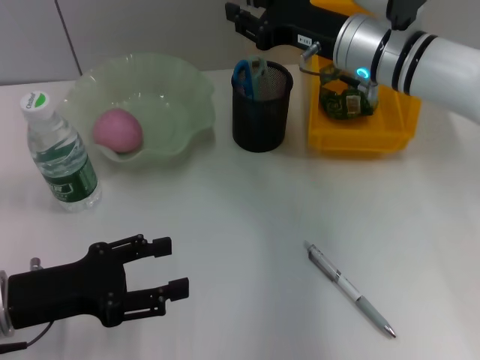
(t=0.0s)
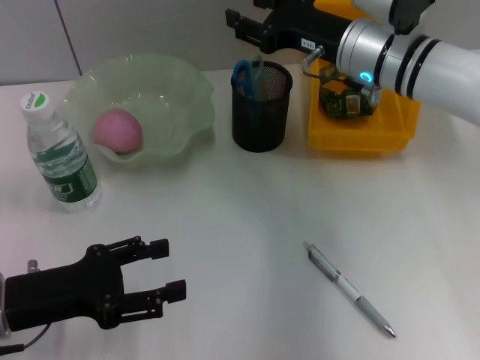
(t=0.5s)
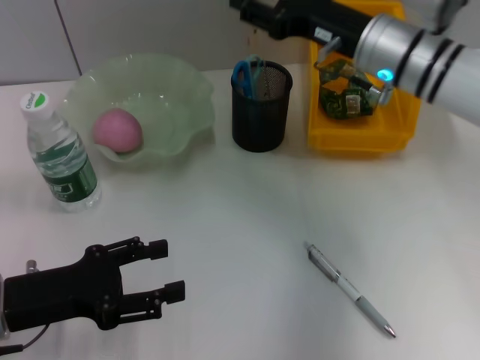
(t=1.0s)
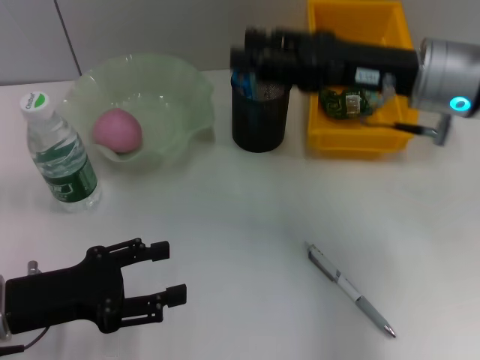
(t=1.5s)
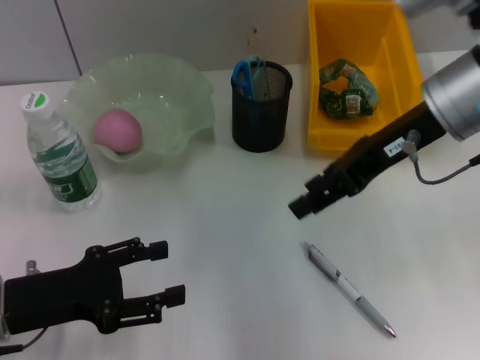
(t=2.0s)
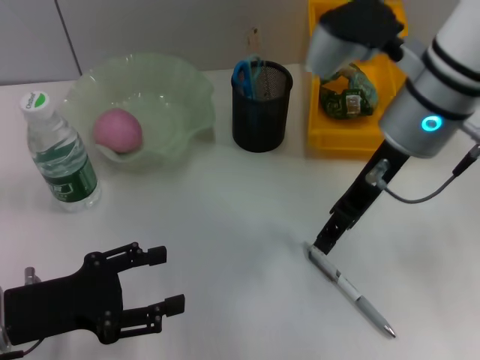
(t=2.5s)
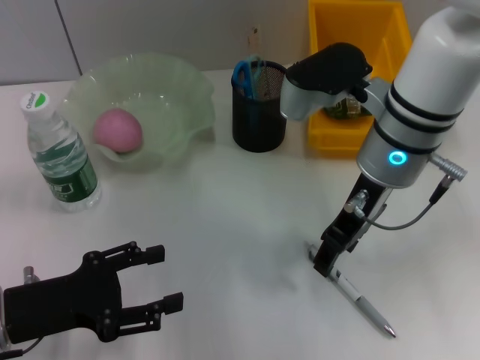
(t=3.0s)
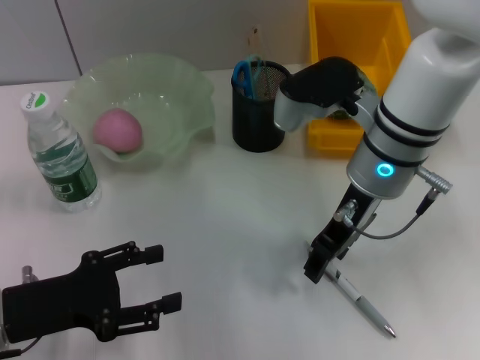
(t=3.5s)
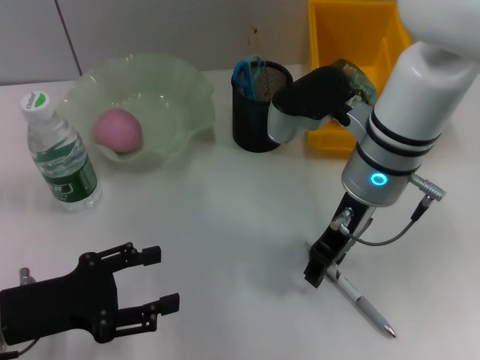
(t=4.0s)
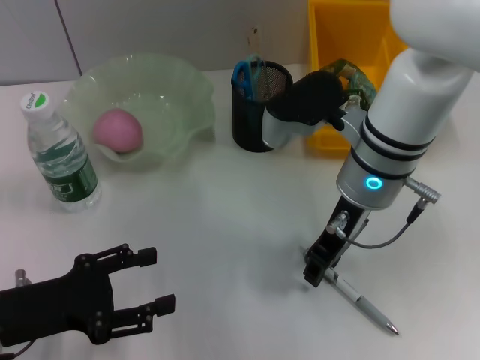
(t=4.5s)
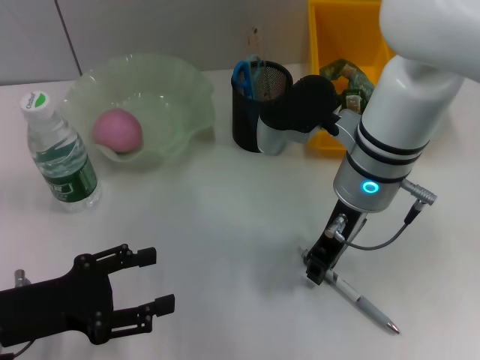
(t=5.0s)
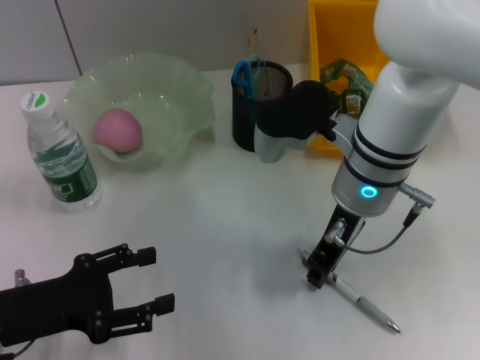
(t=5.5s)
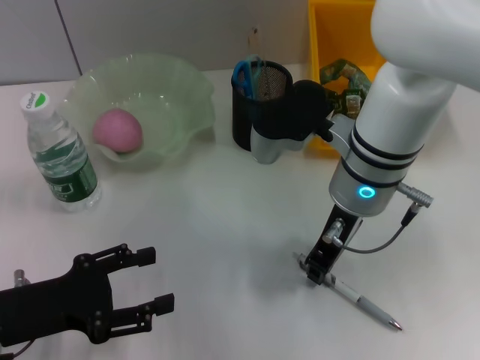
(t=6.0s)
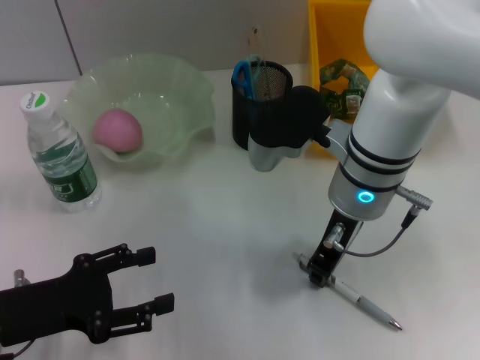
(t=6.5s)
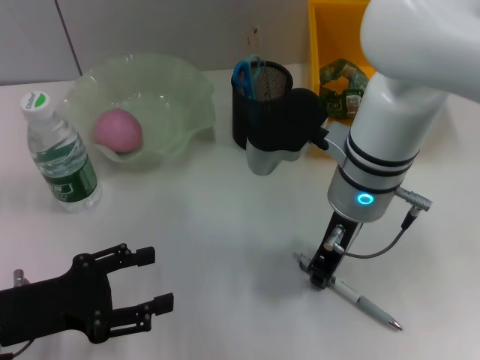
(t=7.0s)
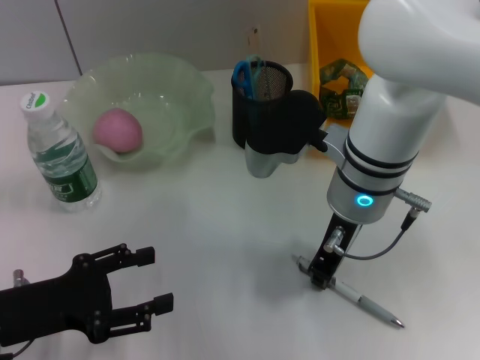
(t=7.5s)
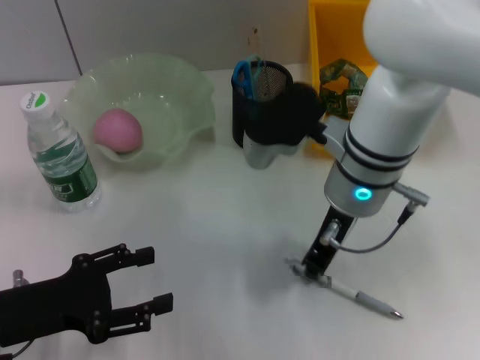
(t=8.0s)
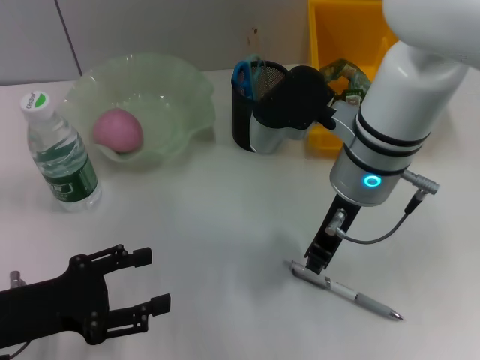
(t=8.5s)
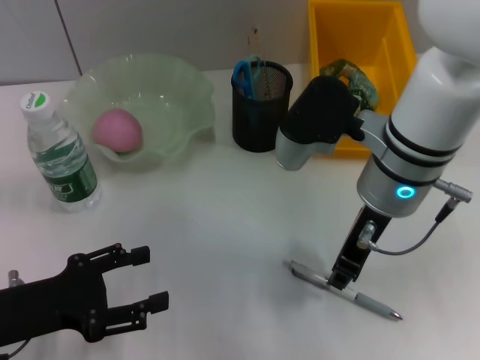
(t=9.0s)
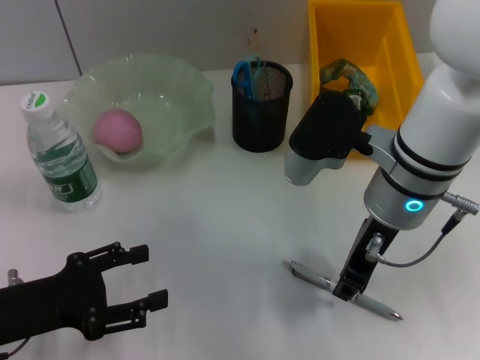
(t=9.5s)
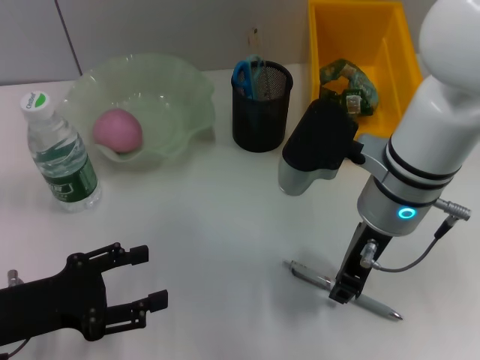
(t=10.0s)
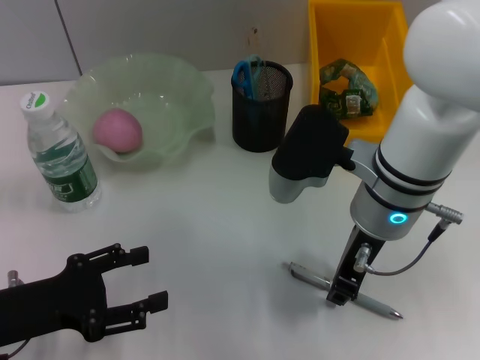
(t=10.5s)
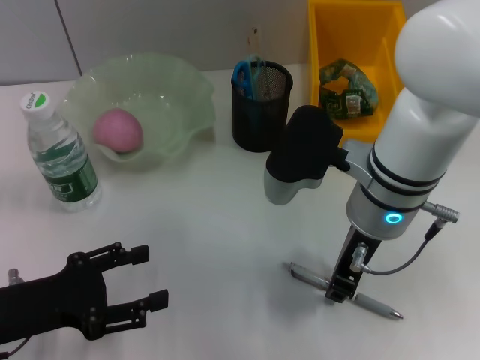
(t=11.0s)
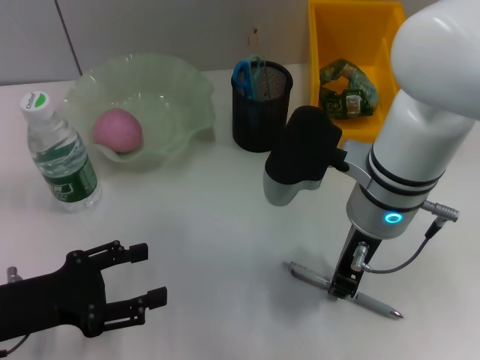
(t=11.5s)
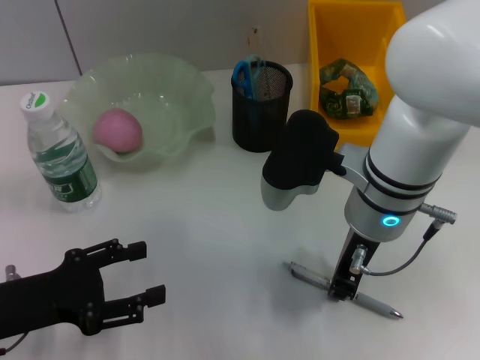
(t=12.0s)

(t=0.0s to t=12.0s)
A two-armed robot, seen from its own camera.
t=0.0s - t=2.0s: The right gripper heads backward and upward, covering about 10 cm.
t=2.0s - t=4.0s: The right gripper goes about 10 cm downward and to the left.
t=4.0s - t=6.0s: The grippers stay close to where they were, moving slightly.
t=6.0s - t=8.0s: Both grippers stay put.
t=8.0s - t=12.0s: The grippers make only small movements.

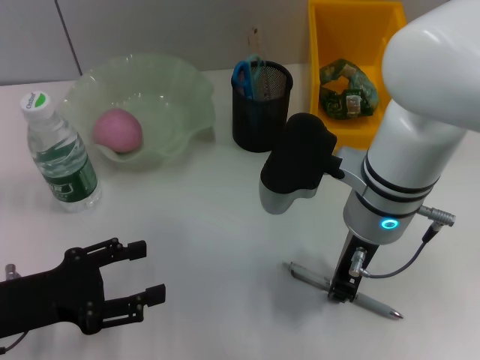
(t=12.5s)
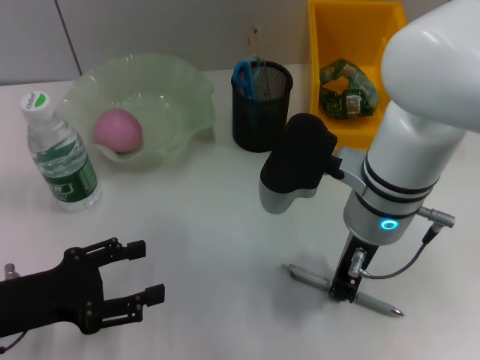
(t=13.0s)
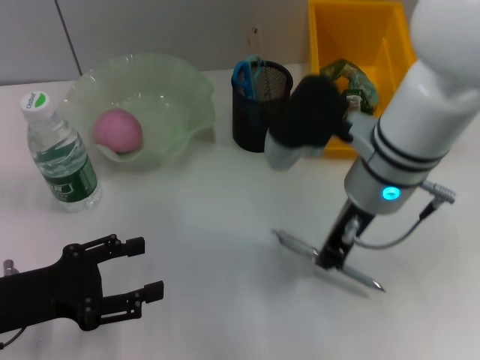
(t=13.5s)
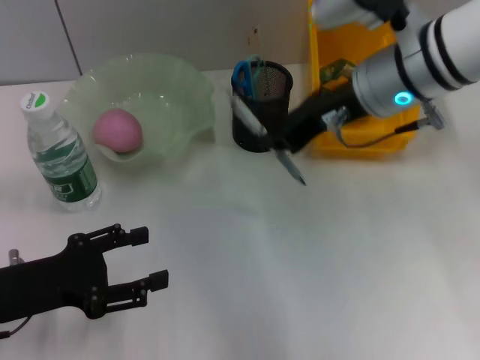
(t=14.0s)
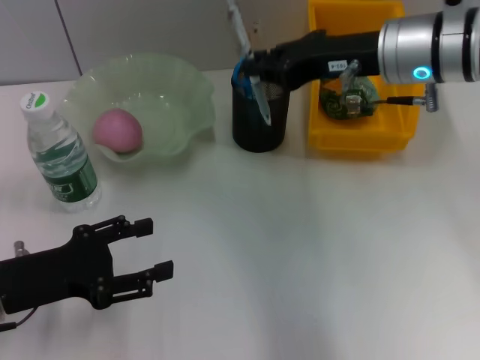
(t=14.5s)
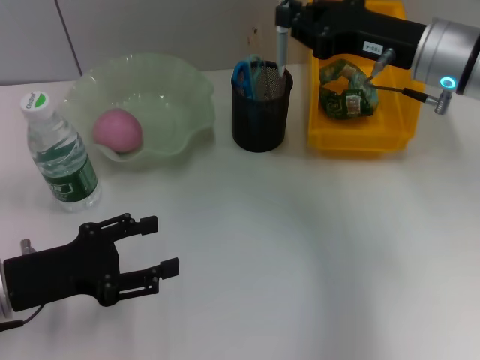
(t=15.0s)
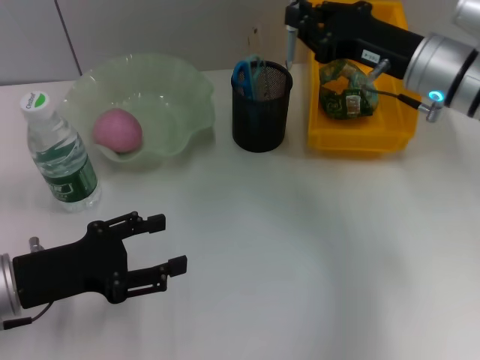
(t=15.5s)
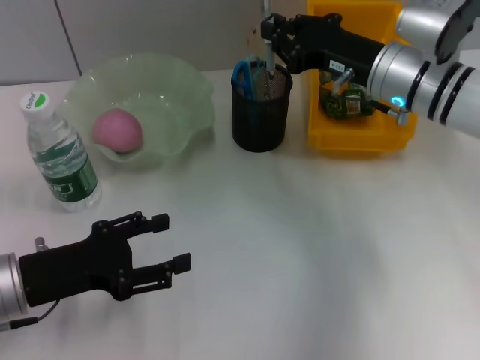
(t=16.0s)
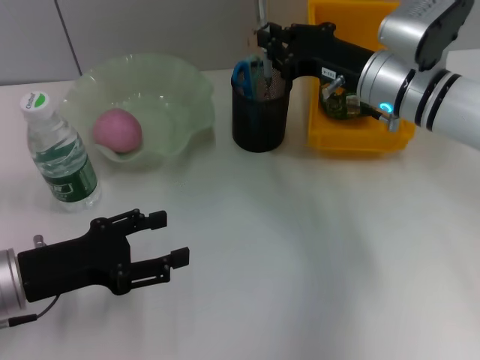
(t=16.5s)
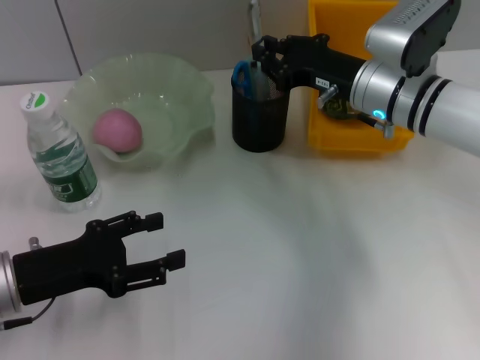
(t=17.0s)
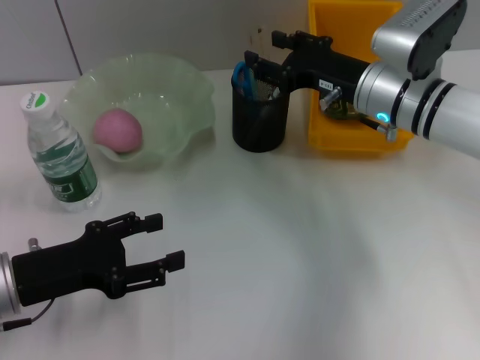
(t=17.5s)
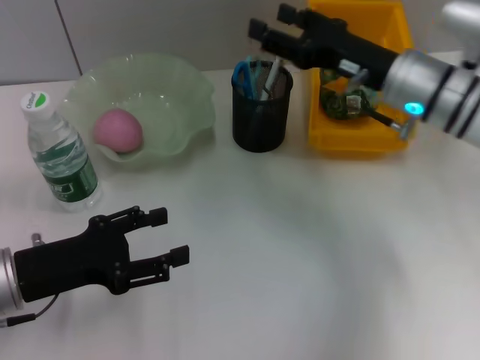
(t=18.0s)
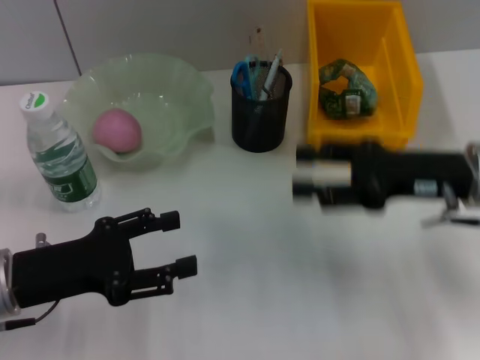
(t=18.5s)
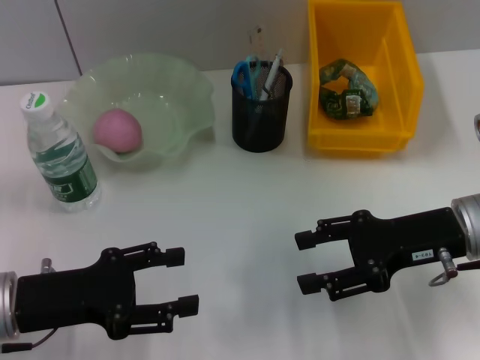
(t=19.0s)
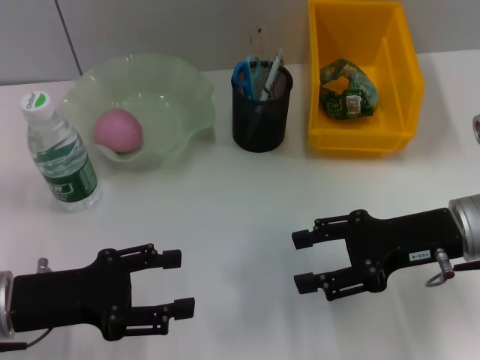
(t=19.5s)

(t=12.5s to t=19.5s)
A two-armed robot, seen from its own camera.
Step, t=13.0s - t=17.5s: Place the gray spring-action pen into the pen holder with the right hand.
t=12.5s - t=14.5s: The right gripper heads forward, to the right and upward, covering roughly 10 cm.
t=14.5s - t=16.0s: The right gripper shifts approximately 5 cm downward.
t=16.0s - t=17.5s: The right gripper opens its fingers.
t=17.5s - t=19.5s: The right gripper shifts some 15 cm backward and to the right.

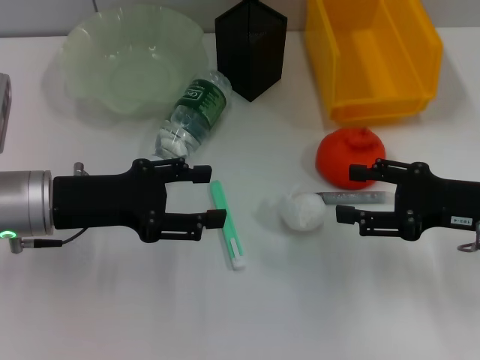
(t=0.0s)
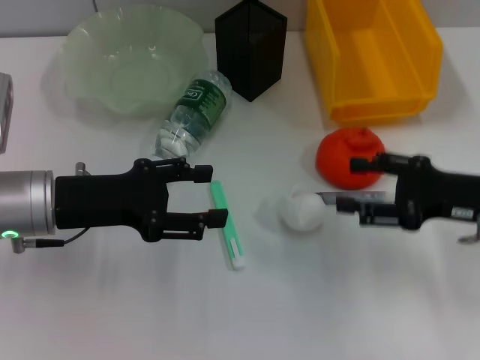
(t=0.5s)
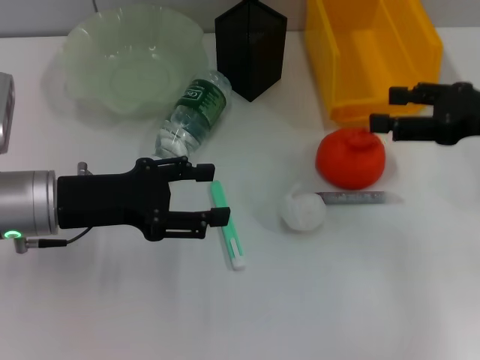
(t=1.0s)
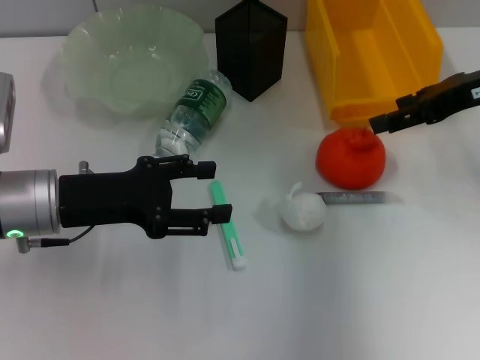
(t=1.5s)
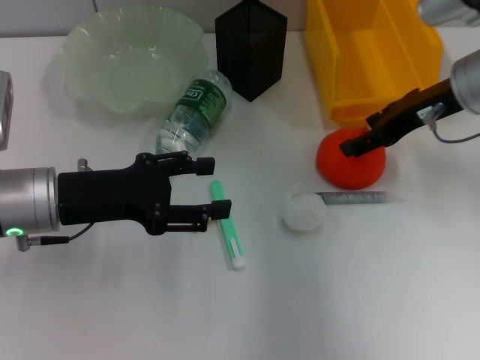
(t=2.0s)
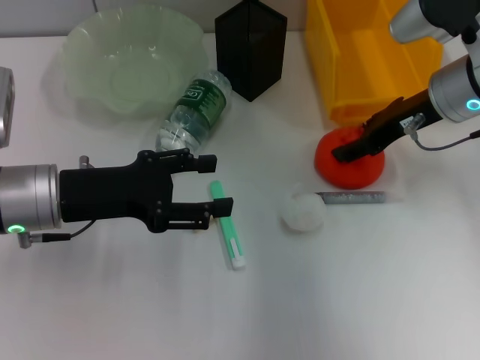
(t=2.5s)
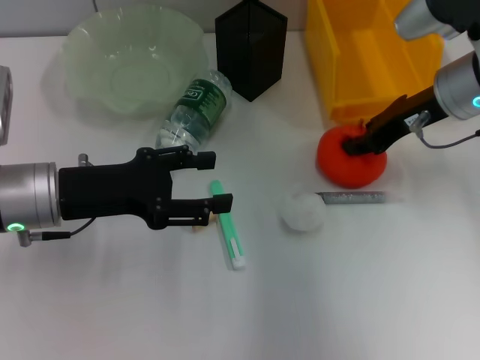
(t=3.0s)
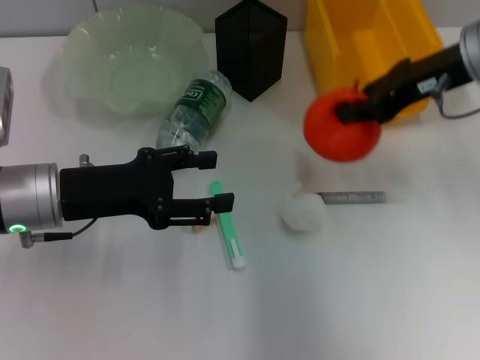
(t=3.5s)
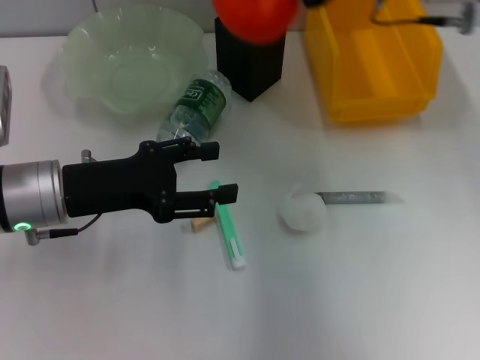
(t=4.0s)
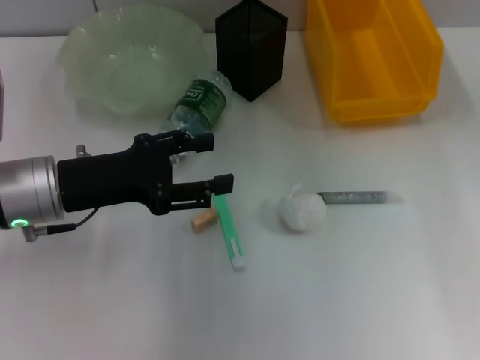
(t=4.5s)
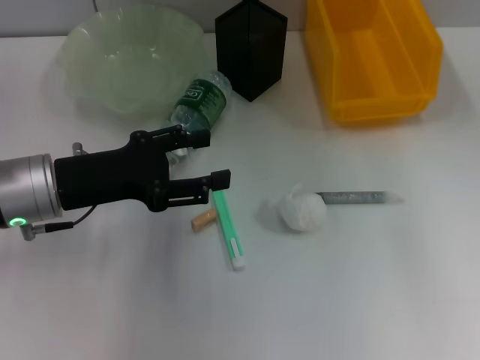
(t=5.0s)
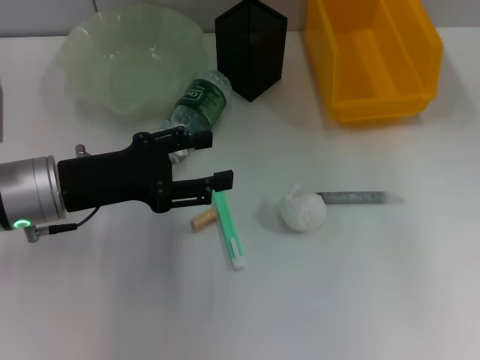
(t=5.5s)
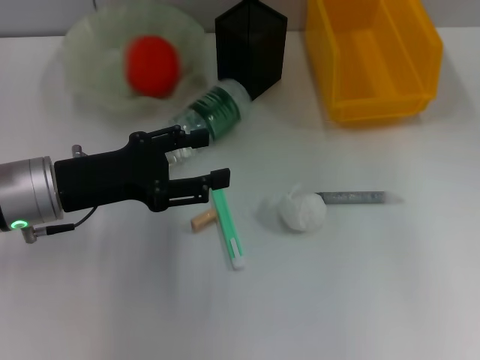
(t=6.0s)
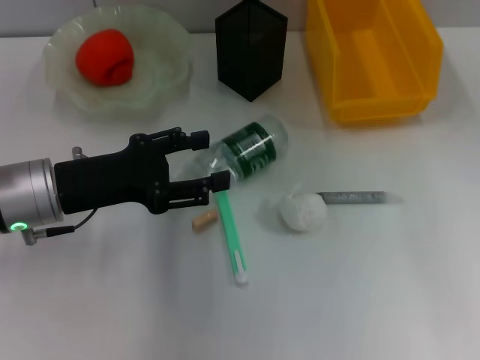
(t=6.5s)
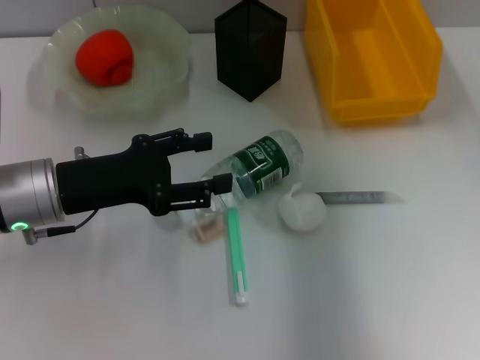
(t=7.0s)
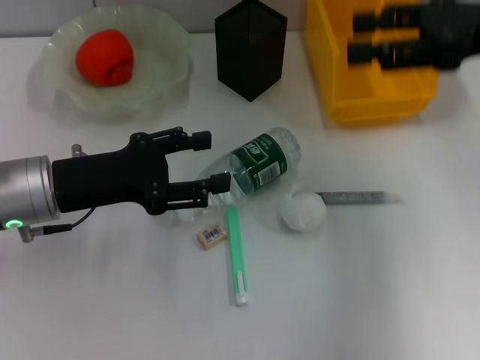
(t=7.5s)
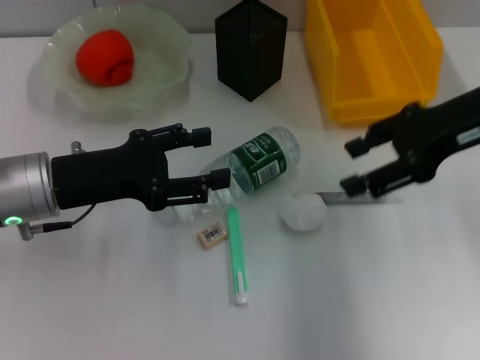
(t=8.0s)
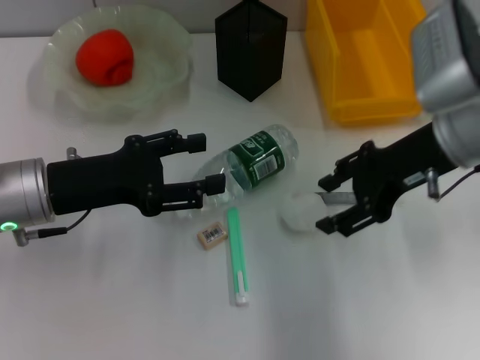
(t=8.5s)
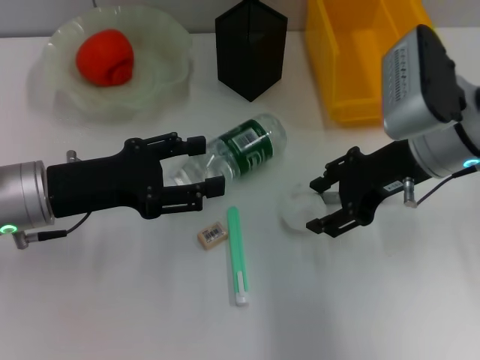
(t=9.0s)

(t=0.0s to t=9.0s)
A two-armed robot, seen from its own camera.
Step, t=0.0s - t=2.5s: Grab the orange with the right hand.
Step, t=3.0s - t=6.0s: Place the orange into the fruit bowl with the right hand.
t=0.0s - t=2.0s: The right gripper moves forward, upward and to the left, about 15 cm.
t=2.0s - t=4.5s: The right gripper is displaced to the left, upward and forward by about 20 cm, and closes.
t=4.5s - t=7.0s: The right gripper travels to the right and backward by some 15 cm, and opens up.
t=7.0s - t=9.0s: The right gripper moves downward, some 10 cm.
